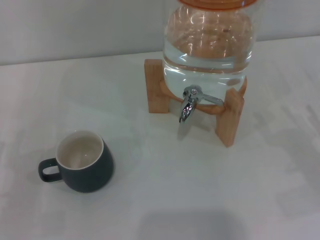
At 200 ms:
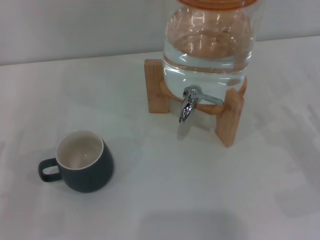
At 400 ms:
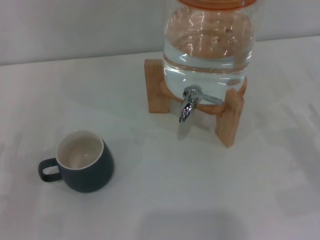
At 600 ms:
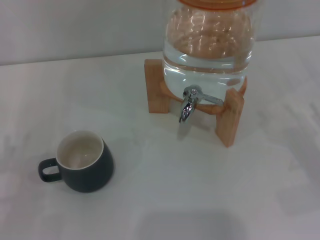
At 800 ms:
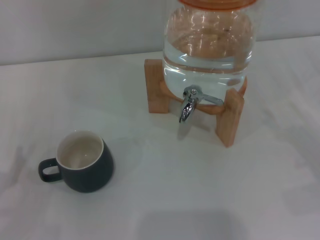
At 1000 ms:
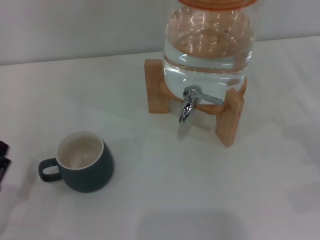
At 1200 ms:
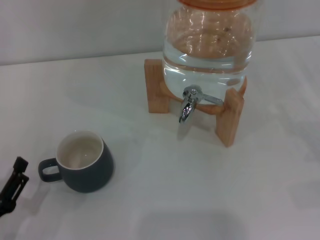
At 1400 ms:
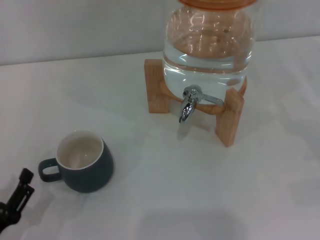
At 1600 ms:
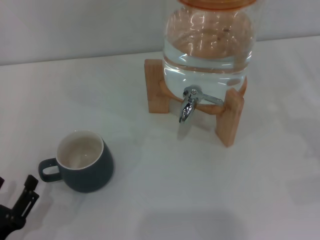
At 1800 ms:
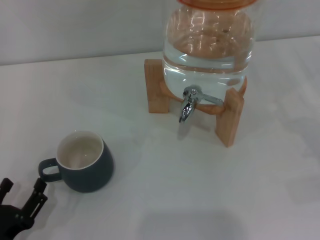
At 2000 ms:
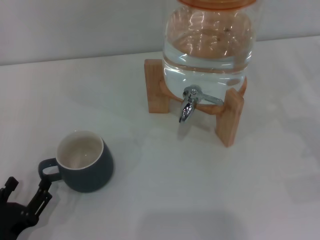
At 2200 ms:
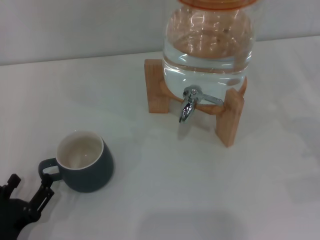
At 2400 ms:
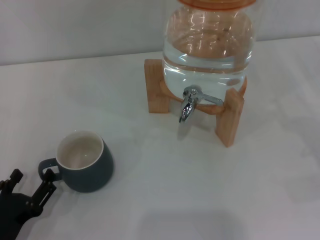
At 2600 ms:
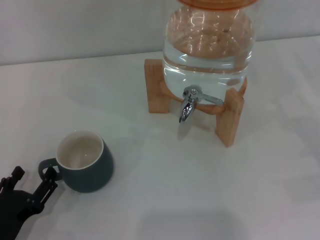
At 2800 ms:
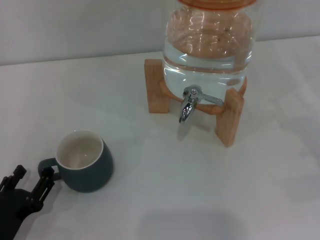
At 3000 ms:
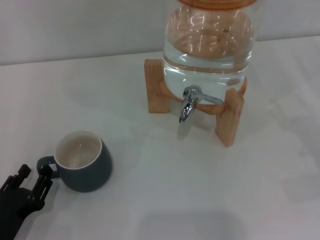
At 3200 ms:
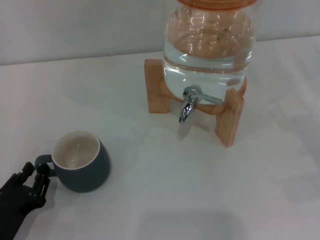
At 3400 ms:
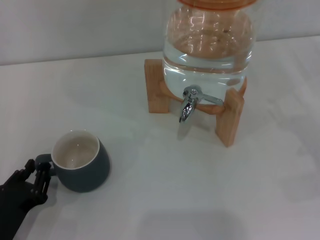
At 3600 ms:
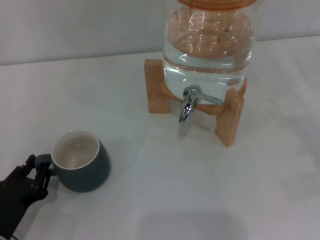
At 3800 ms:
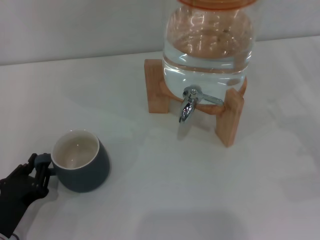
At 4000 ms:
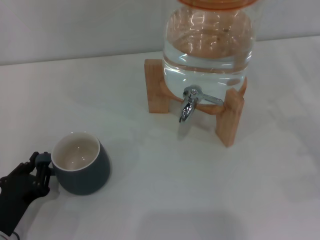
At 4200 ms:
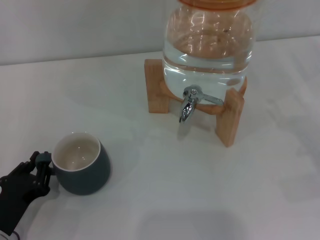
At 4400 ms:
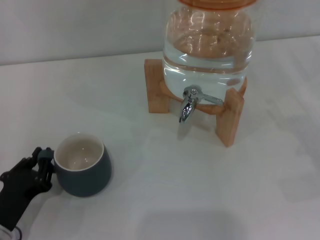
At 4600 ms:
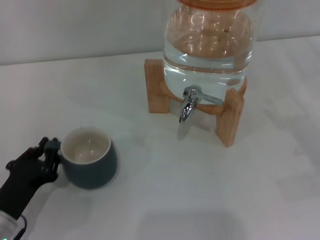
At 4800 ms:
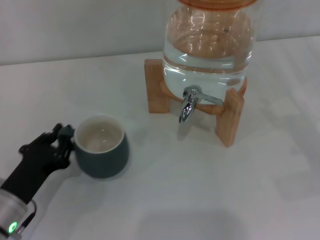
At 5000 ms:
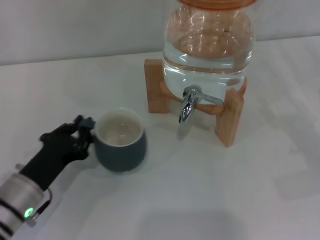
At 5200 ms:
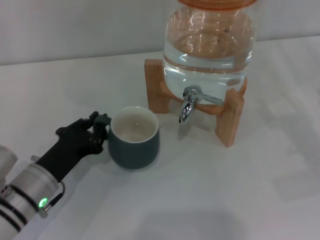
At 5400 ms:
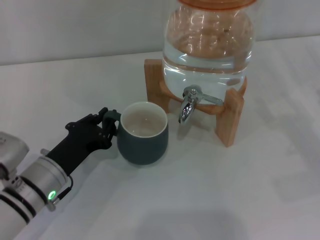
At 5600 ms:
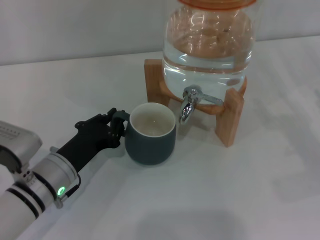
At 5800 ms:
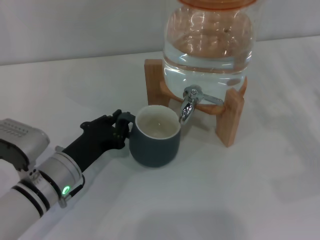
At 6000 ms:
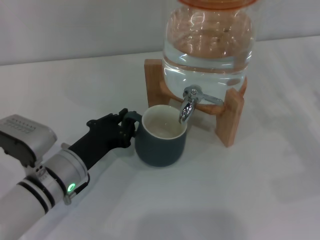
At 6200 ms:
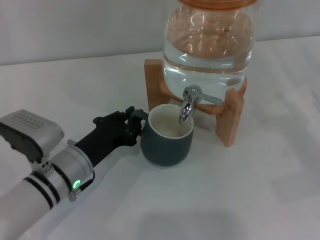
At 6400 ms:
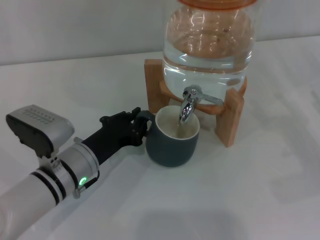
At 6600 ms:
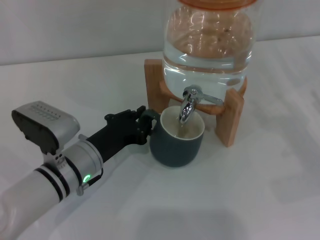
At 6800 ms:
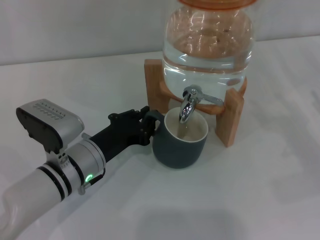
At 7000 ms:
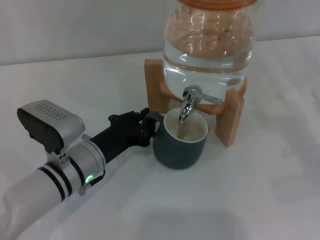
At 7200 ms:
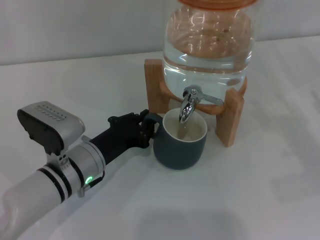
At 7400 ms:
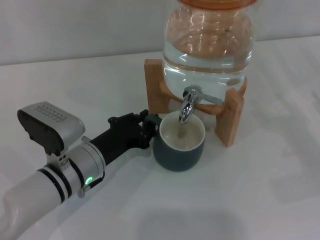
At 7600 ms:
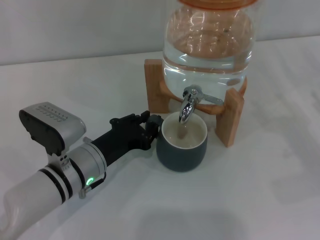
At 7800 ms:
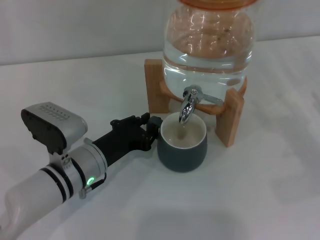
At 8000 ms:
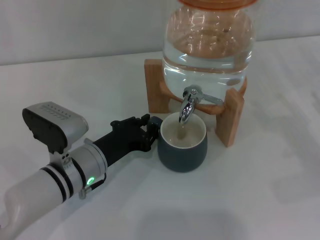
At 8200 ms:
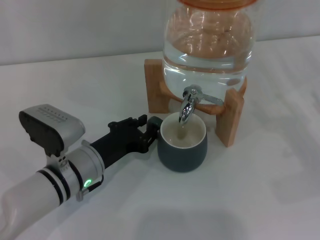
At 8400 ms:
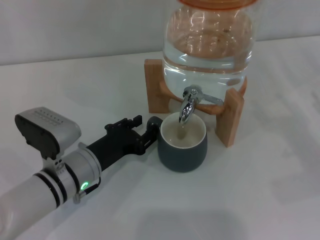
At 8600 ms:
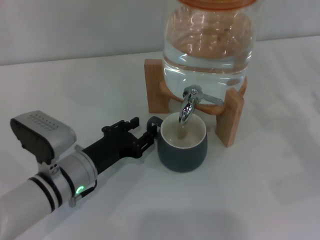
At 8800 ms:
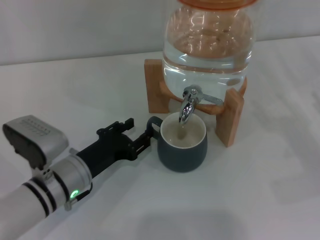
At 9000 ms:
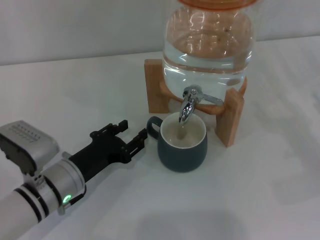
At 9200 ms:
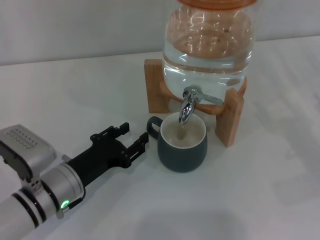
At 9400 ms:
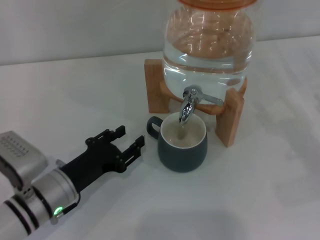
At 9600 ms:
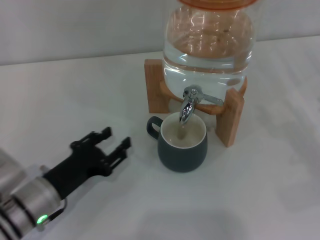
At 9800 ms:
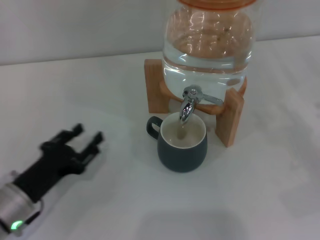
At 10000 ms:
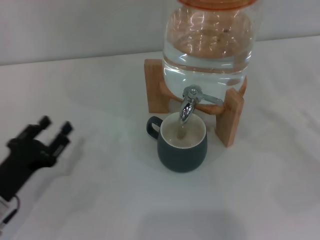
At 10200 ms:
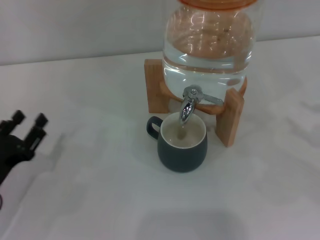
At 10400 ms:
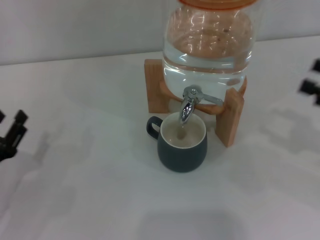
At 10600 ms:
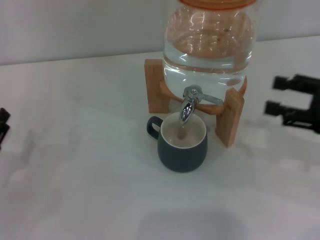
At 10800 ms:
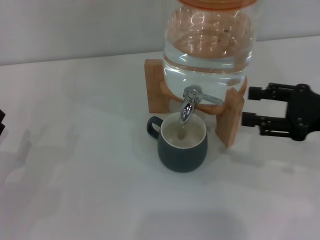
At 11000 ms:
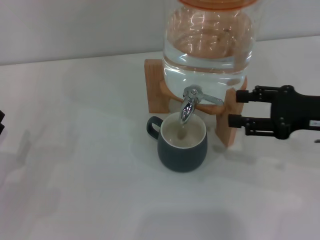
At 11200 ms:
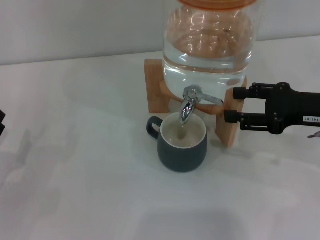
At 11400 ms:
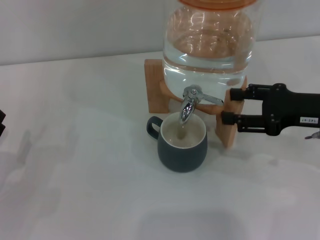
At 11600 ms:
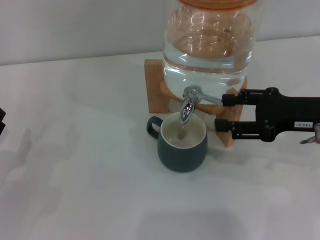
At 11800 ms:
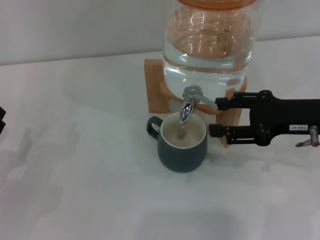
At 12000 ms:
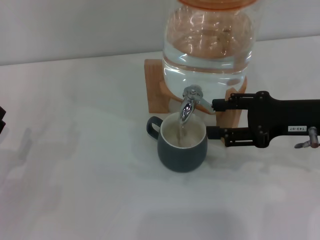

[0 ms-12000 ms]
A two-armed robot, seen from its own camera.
Task of the whole recording: the left gripper pick up the black cup and place it horizontally under the faucet, the right gripper turn on the faucet to fill the cup, and then turn off the faucet.
Step, 0 ms to 9400 ms: Move the cup beneath the water dispenser nozzle with the left gripper.
0 ms to 1600 ms: The left gripper shifts roughly 10 cm backward.
1600 ms to 3000 ms: The grippers make only small movements.
3000 ms to 4400 ms: The left gripper closes up.
4400 ms to 6000 ms: The left gripper goes roughly 15 cm to the right and forward.
6000 ms to 7600 ms: The grippers move only a little.
7600 ms to 9000 ms: The left gripper opens up.
9000 ms to 10400 ms: The right gripper shifts approximately 10 cm upward, while the left gripper goes roughly 15 cm to the left.
10400 ms to 12000 ms: The right gripper shifts some 10 cm to the left and forward.

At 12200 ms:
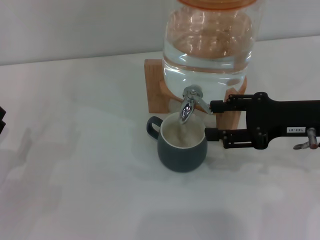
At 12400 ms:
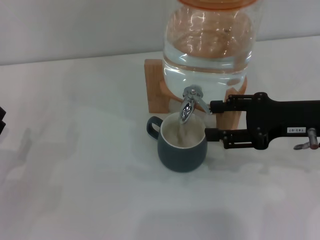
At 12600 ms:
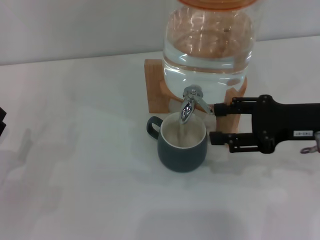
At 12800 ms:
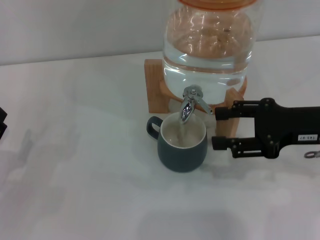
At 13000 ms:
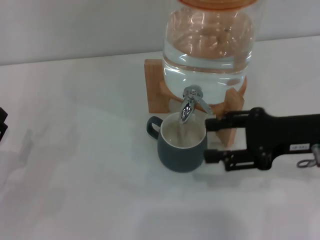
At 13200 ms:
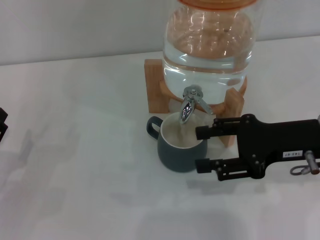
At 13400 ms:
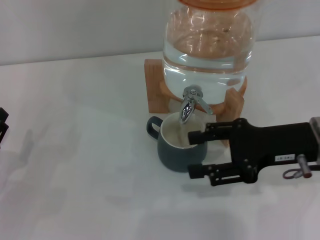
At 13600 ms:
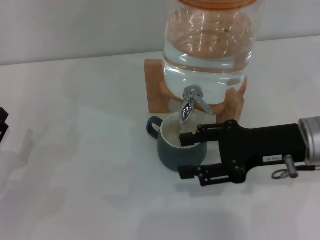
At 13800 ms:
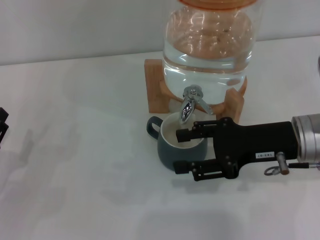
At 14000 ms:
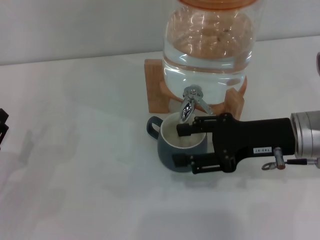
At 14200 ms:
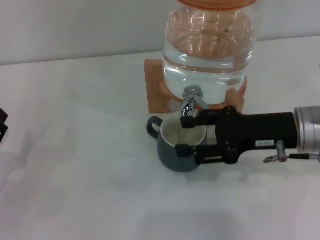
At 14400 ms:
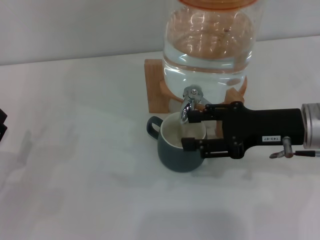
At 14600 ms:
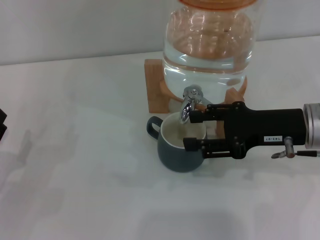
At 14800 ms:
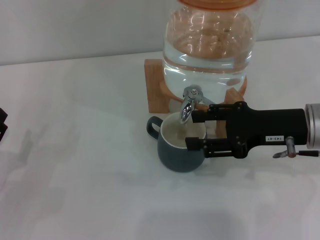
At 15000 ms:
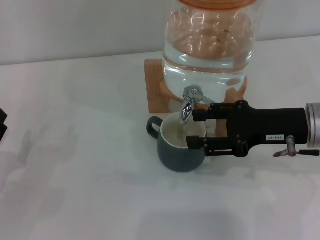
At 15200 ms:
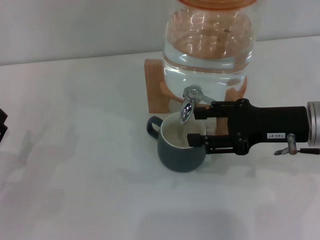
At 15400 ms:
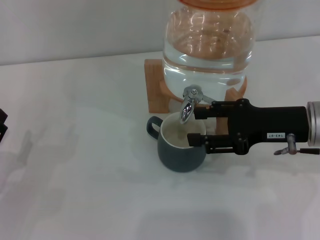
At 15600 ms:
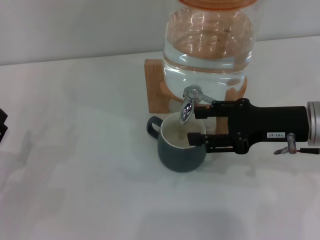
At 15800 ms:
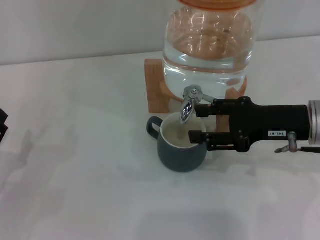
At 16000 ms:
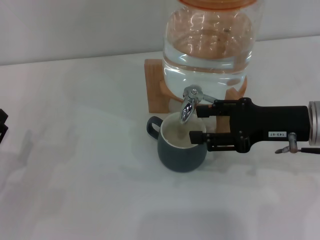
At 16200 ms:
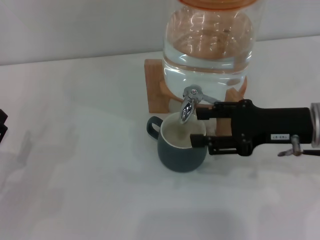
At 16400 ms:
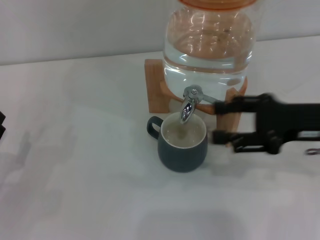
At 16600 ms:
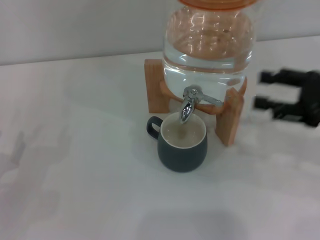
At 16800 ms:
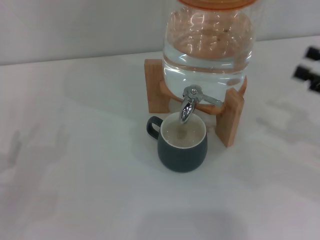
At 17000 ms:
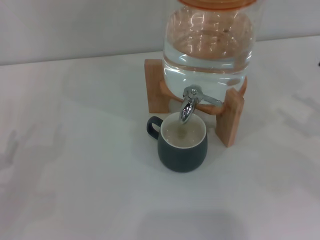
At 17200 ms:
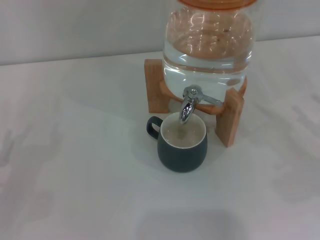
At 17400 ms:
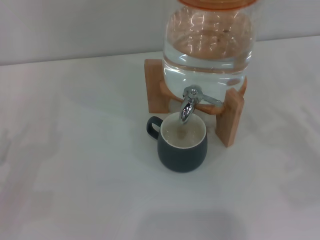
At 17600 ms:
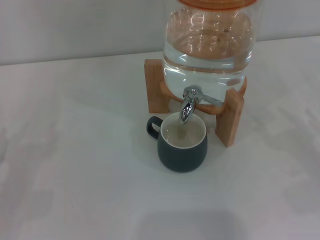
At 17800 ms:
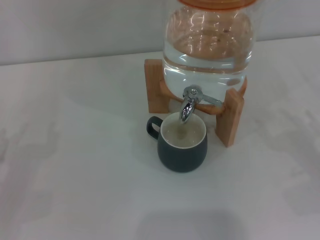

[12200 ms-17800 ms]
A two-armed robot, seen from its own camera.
Task of the whole recording: the left gripper pick up the black cup and place it horizontally under the faucet, the right gripper turn on the faucet to fill the cup, and then turn off the faucet.
Step, 14200 ms to 16400 ms: Close the dispenser valve with the right gripper.
12200 ms to 16400 ms: The grippers move only a little.
16400 ms to 17800 ms: The right gripper is displaced to the right, downward and backward by approximately 15 cm.
